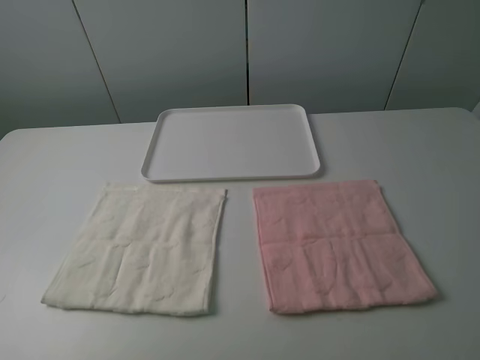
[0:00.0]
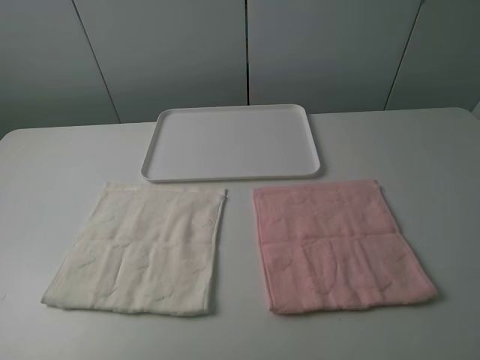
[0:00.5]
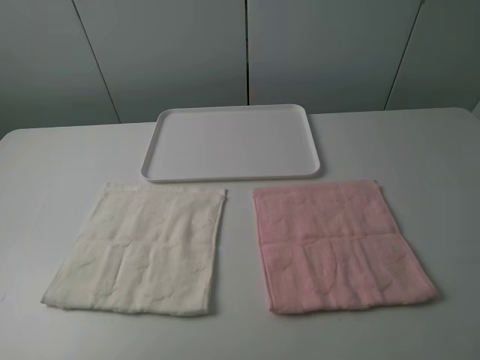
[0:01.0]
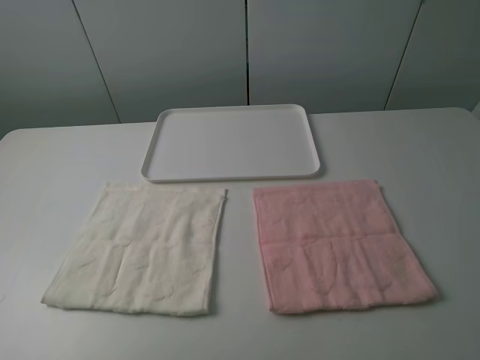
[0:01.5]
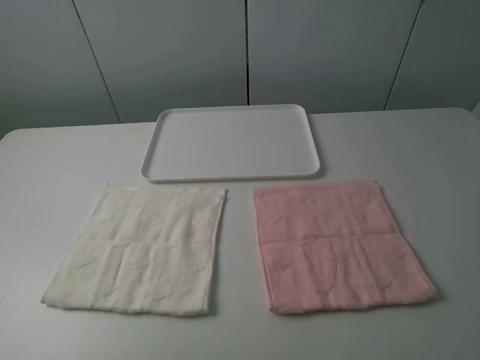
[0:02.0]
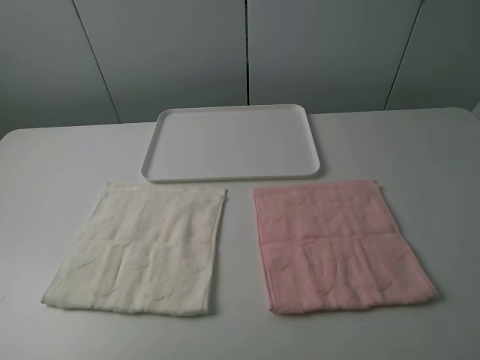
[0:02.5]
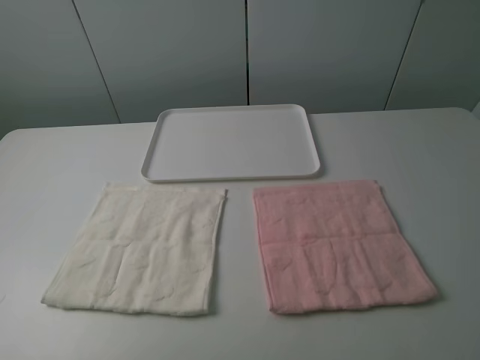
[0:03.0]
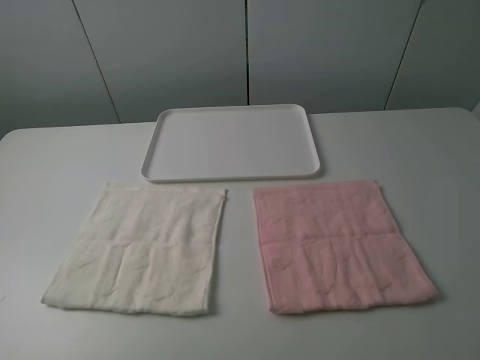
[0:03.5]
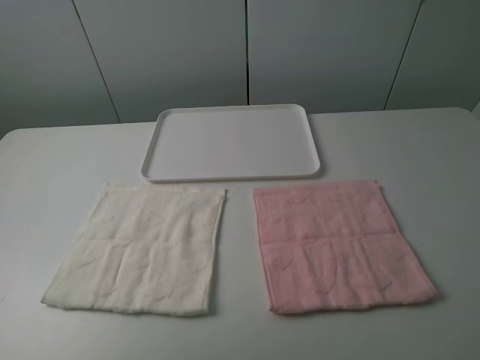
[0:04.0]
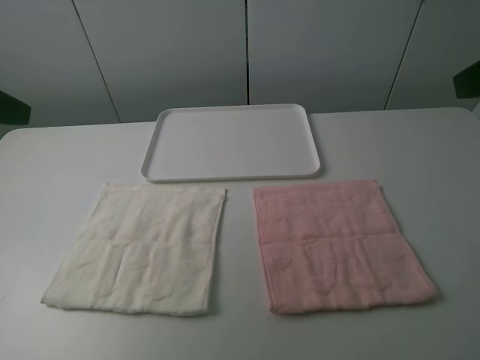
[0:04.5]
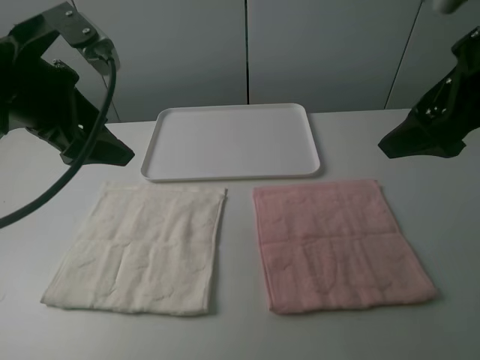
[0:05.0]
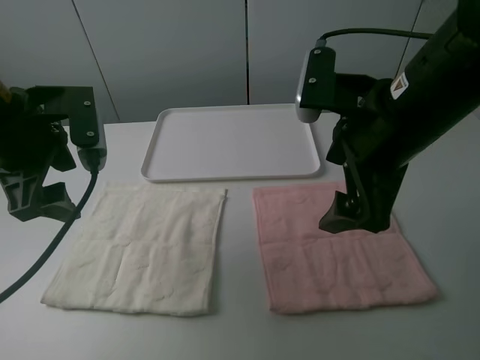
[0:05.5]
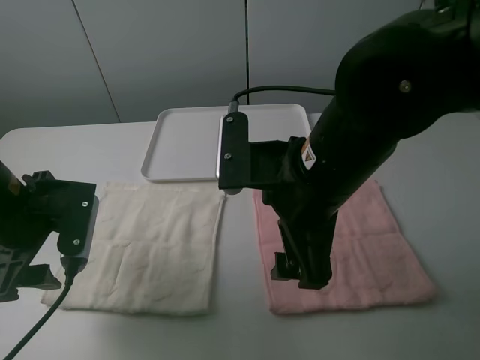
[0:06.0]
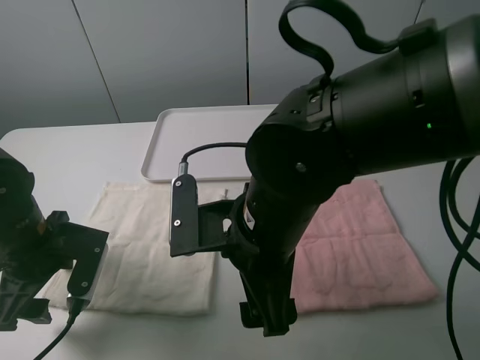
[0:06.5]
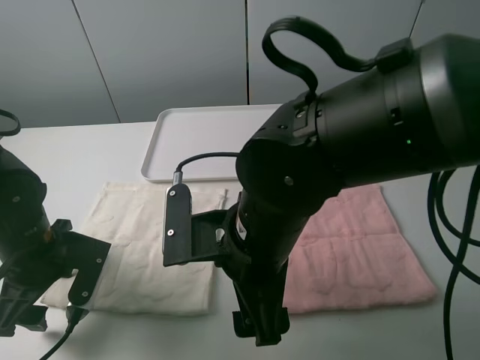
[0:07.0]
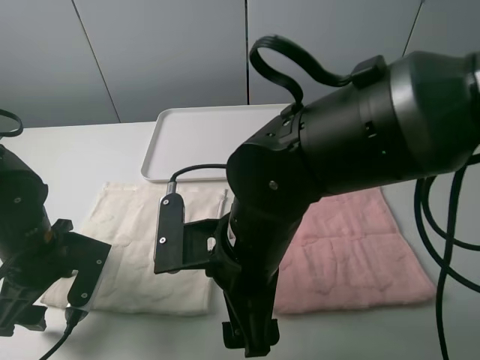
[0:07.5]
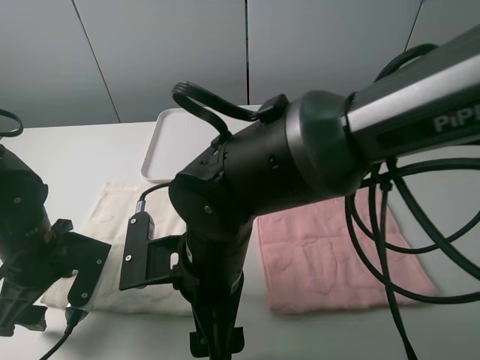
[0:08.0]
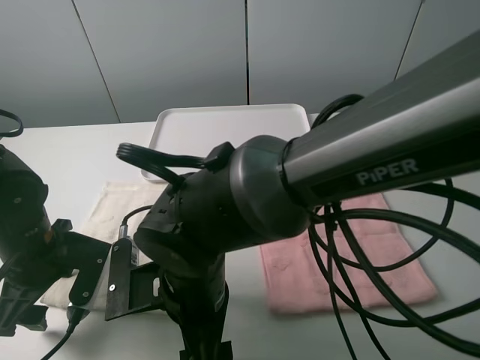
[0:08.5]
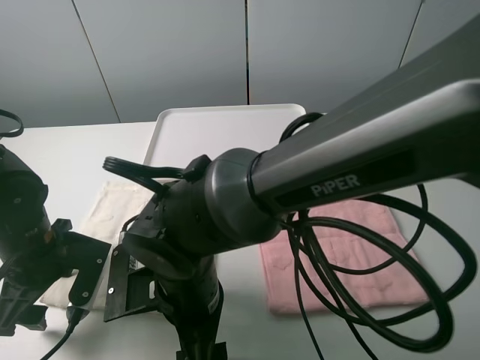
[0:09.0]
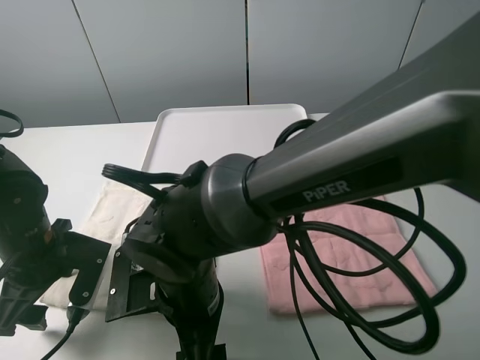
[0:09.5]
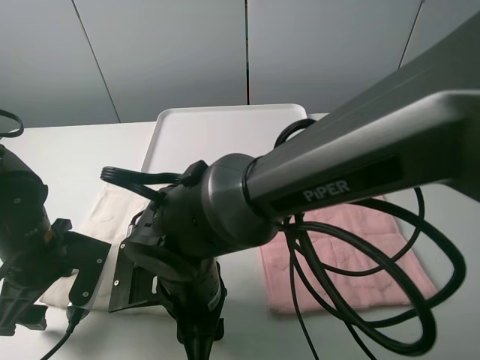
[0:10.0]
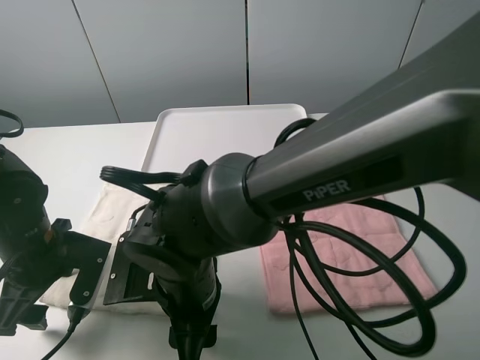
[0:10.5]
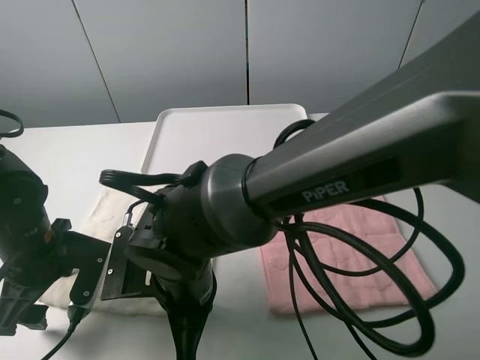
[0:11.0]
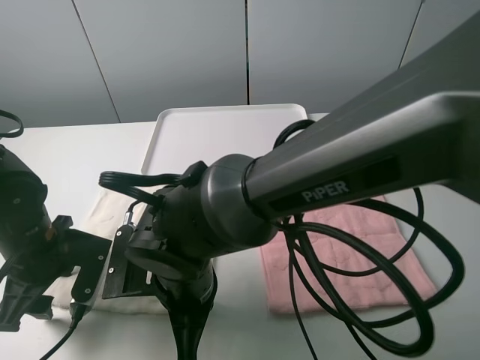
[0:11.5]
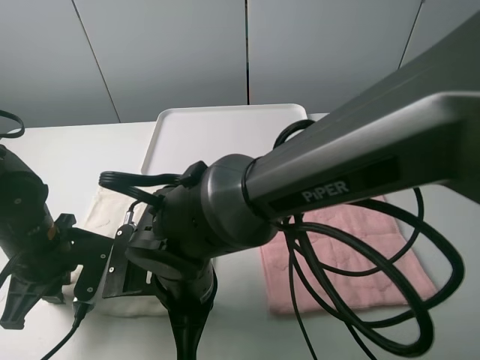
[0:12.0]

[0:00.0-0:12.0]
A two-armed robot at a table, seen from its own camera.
Task of the whole recording: fold one of the towels by two grippers and place it on the tray,then fold another towel by two grippers and place it on the folded towel.
0.0 to 2.0 s: Both grippers stay about where they are.
4.0 to 6.0 s: The left gripper goes roughly 25 cm downward, forward and to the right. Meanwhile the right gripper travels to the left, forward and downward by about 30 cm.
6.0 to 8.0 s: The right gripper heads to the left and downward, covering about 10 cm; the left gripper moves downward, roughly 5 cm.
8.0 to 10.0 s: The right gripper closes its fingers.
10.0 to 12.0 s: The right gripper closes up. The left gripper closes up.

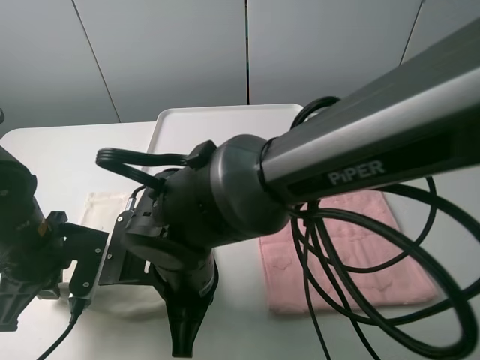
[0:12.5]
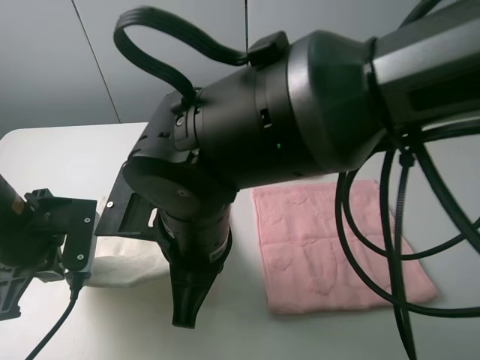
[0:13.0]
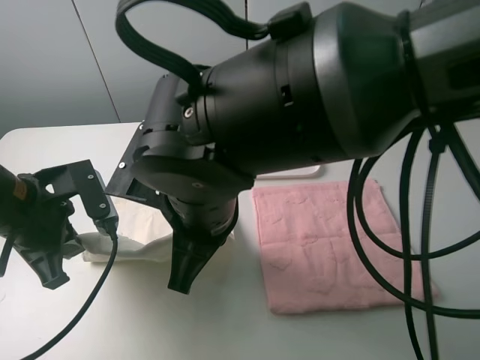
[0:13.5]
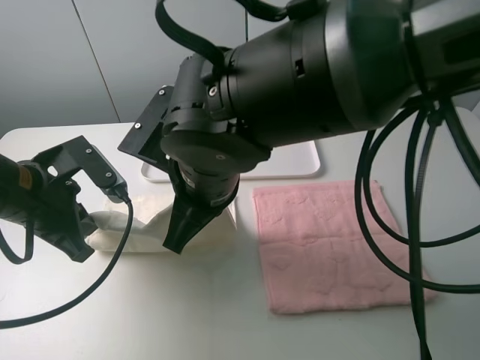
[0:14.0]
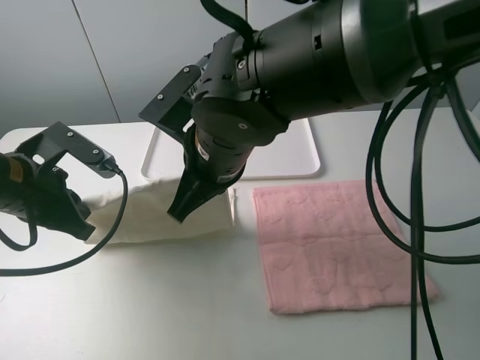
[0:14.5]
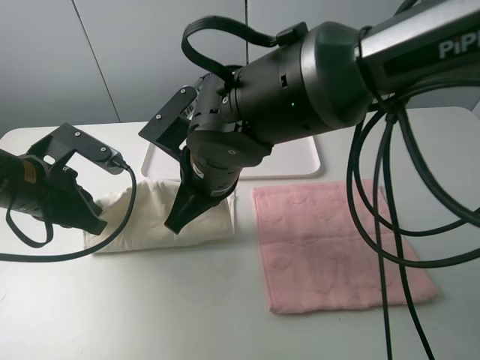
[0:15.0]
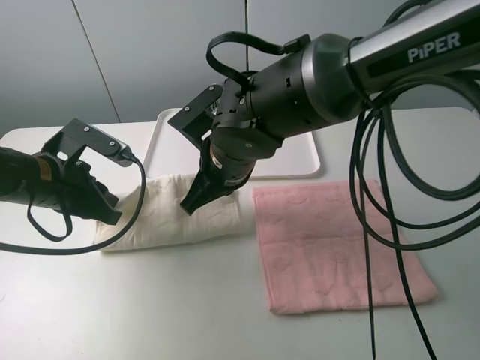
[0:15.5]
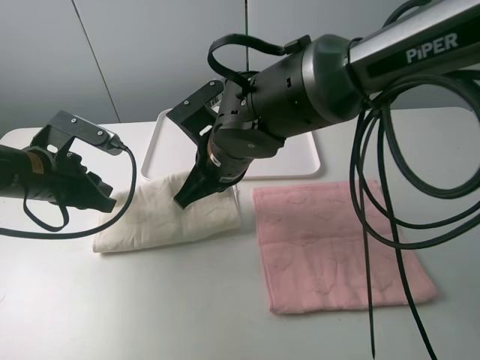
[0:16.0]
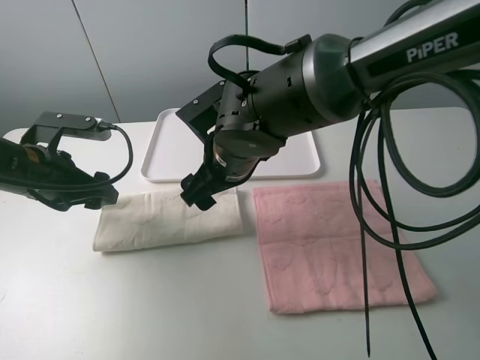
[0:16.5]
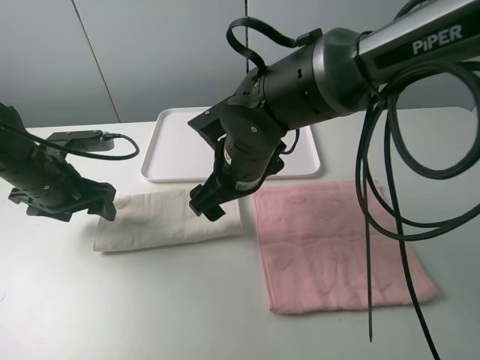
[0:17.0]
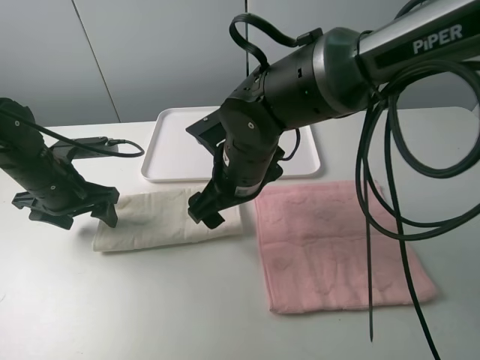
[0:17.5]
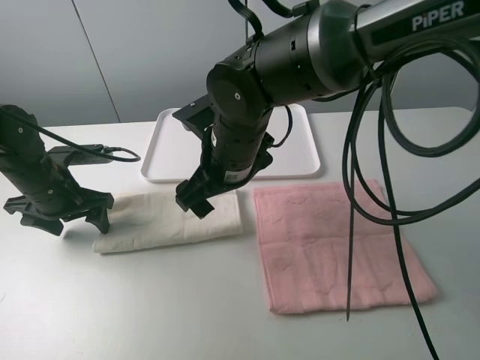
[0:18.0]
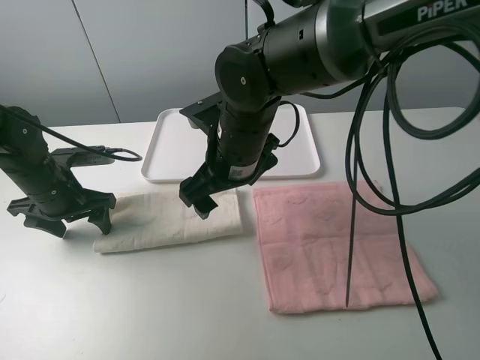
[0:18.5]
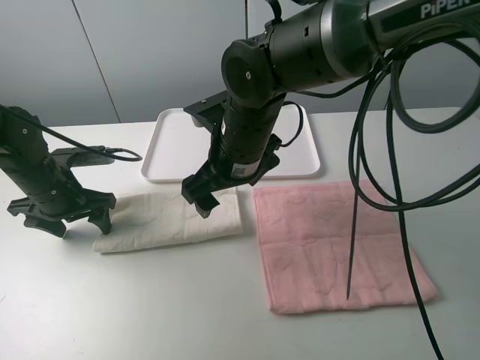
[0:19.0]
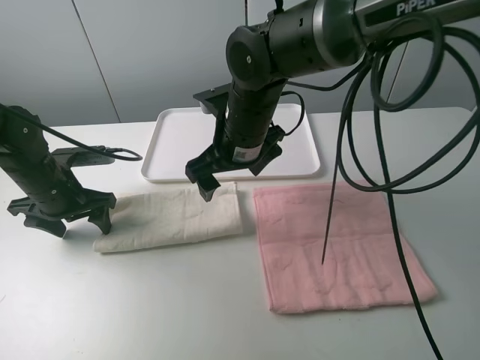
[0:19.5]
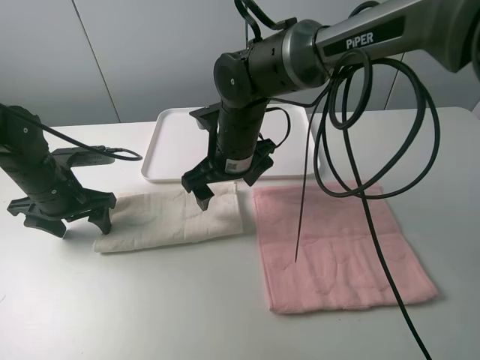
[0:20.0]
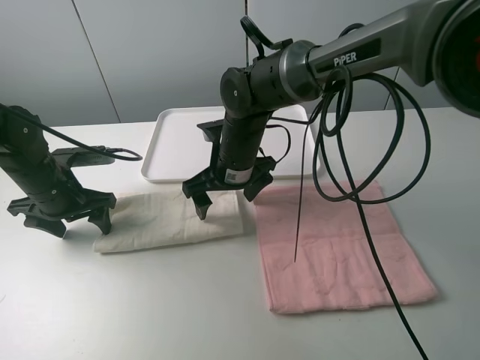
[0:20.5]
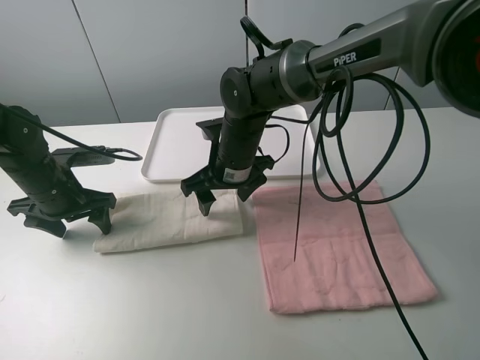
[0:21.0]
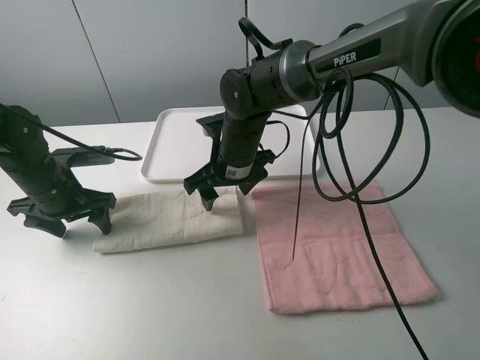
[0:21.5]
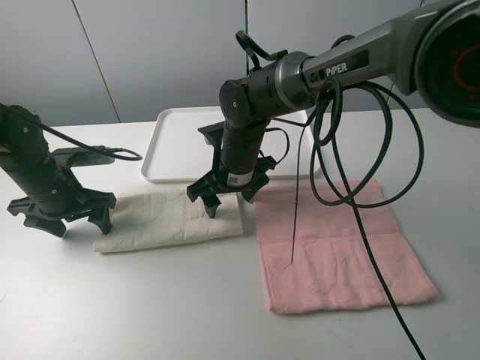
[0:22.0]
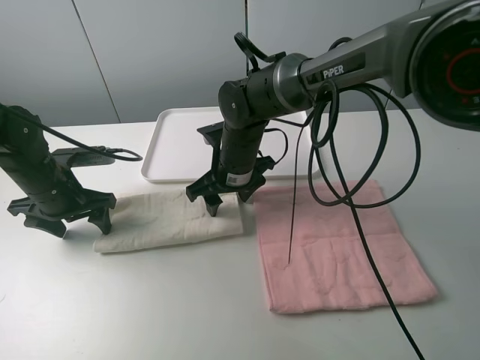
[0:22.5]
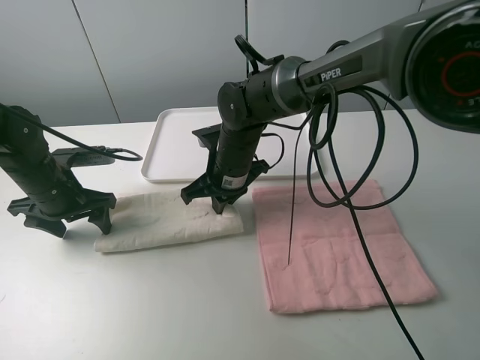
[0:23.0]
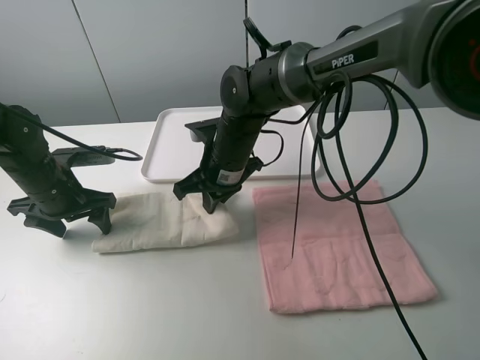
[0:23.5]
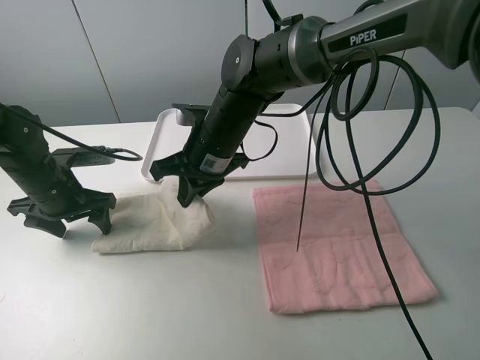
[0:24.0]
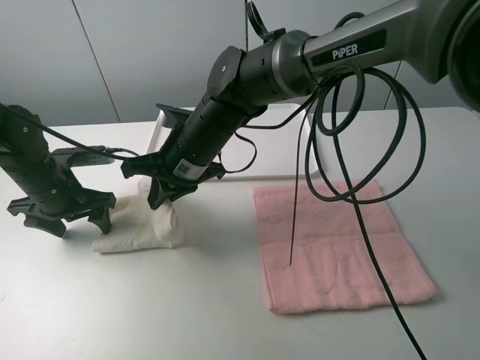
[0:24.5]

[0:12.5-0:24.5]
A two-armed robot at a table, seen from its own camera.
Task of the whole recording: fold one of the towels by two grippers and place it on the tray,then fold another towel by two grippers and place it on the folded towel.
Step, 12.5 to 16.5 s: Fold the white towel upwards with the left gripper.
Step, 17.0 to 18.0 s: Press the white towel with the left gripper.
Step, 18.5 to 23.0 s: Grasp the white towel with the right gripper.
12.5 to 14.5 s: The right gripper travels upward and forward by about 10 cm, while the left gripper travels upward by some 5 cm.
14.5 to 16.5 s: The right gripper changes place by roughly 5 cm, and opens, while the left gripper shifts by approximately 5 cm, and opens its fingers.
16.5 to 18.5 s: The left gripper shifts approximately 5 cm downward.
18.5 to 20.5 s: The right gripper heads downward and forward, covering approximately 10 cm.
20.5 to 22.5 s: There are only small adjustments of the grippers.
22.5 to 24.5 s: The right gripper travels upward and to the left by roughly 5 cm, and closes up.

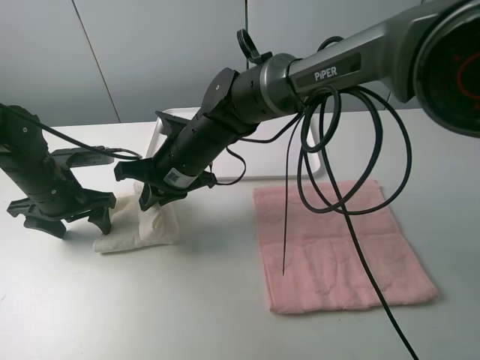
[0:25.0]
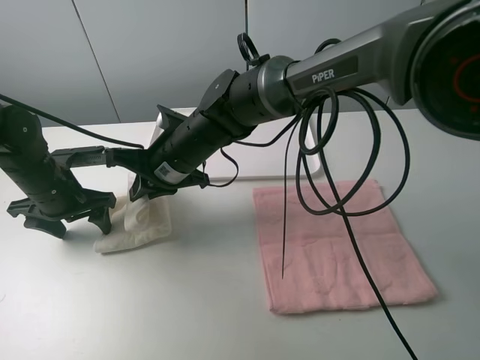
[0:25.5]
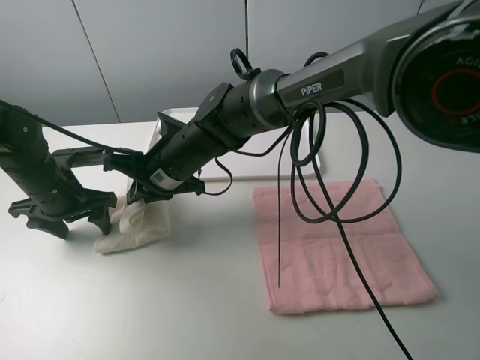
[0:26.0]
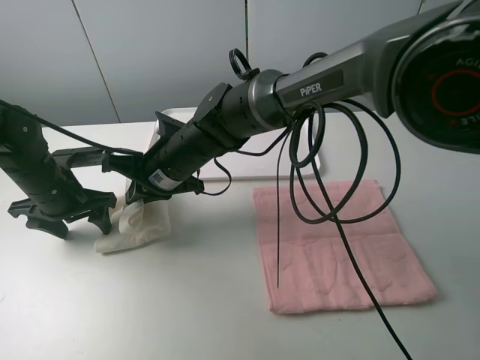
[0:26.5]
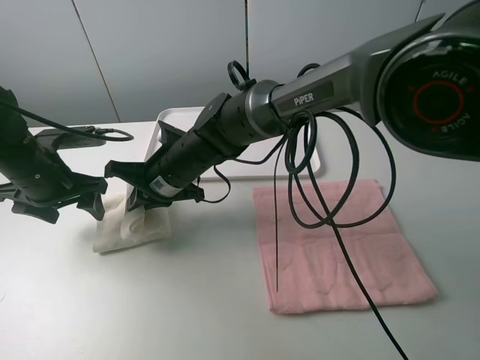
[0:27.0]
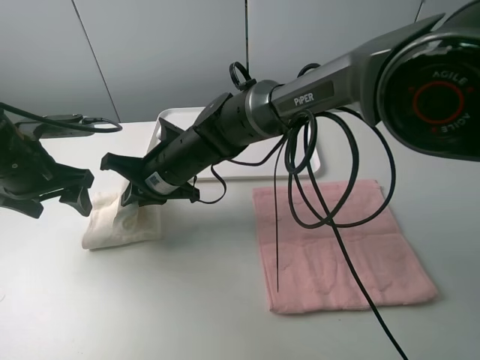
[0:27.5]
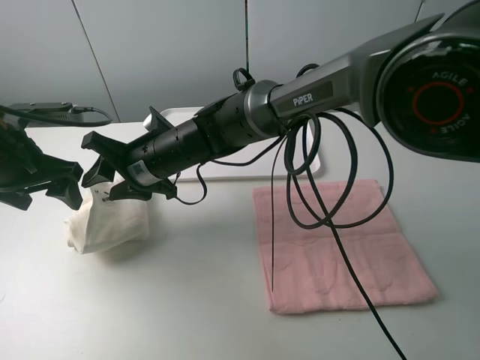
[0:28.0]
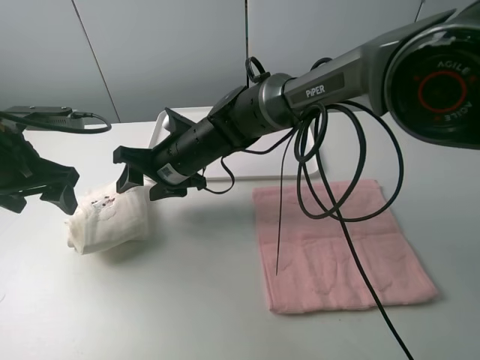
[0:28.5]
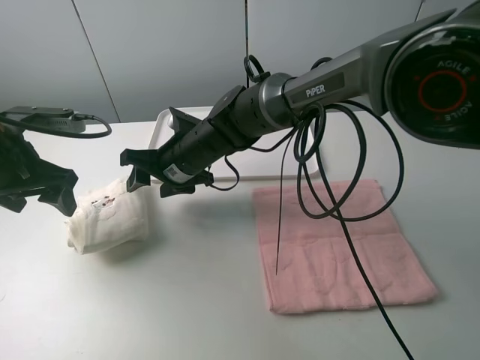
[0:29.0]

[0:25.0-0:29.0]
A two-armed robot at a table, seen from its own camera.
Task of the whole recording: fold one of the towels by two grippers and place it on the tray,then fold another towel by two grippers and place it on the folded towel.
Step, 25.0 to 28.5 s: Fold the white towel from right to left with right gripper.
27.0 to 29.0 s: The left gripper moves some 5 cm. Meanwhile the right gripper opens up.
